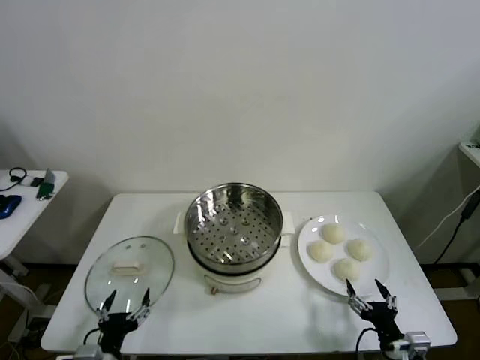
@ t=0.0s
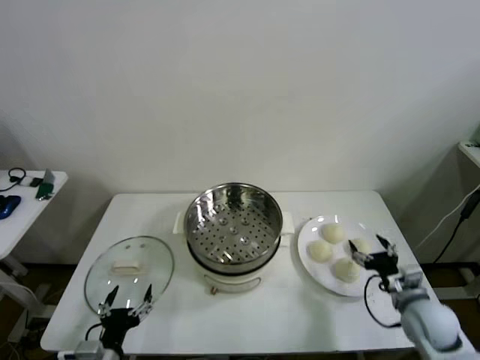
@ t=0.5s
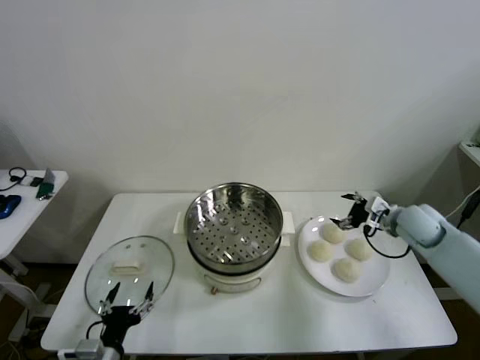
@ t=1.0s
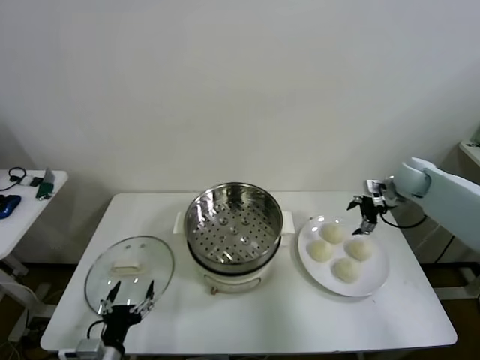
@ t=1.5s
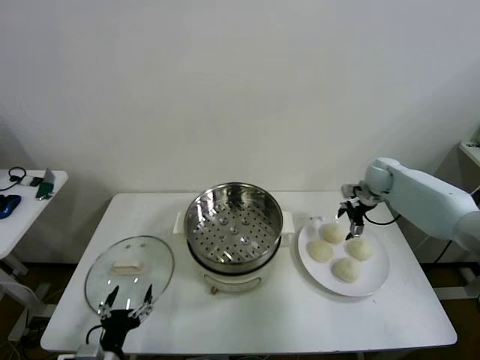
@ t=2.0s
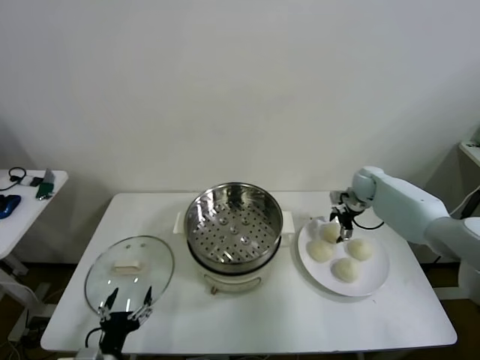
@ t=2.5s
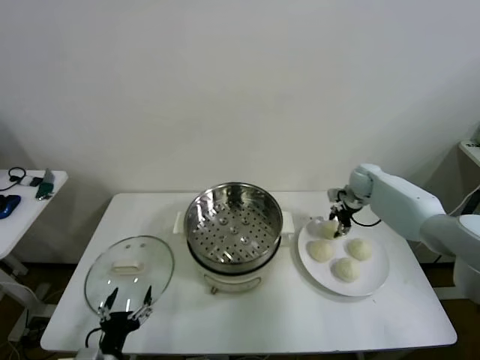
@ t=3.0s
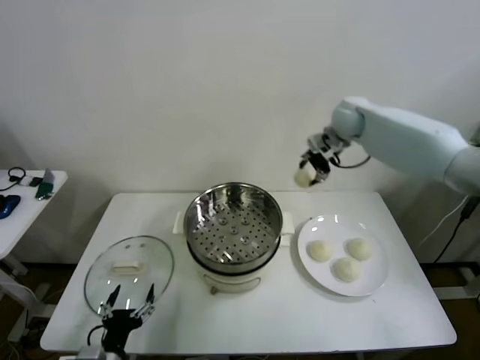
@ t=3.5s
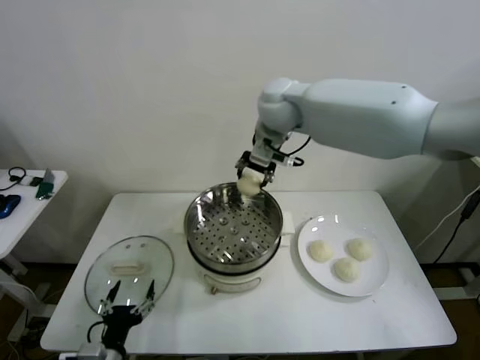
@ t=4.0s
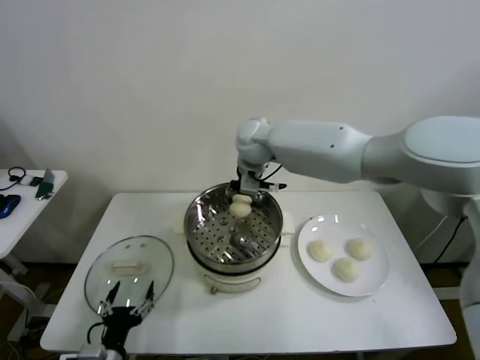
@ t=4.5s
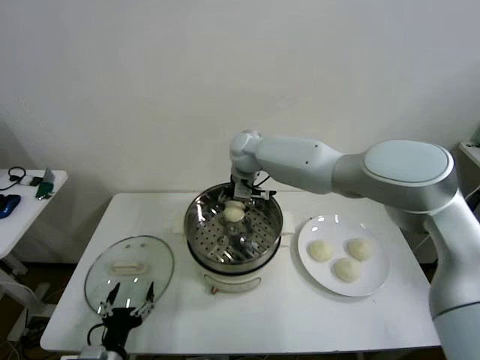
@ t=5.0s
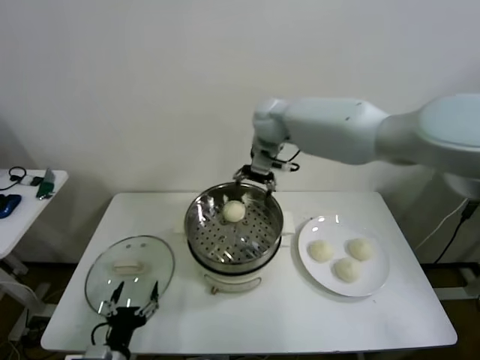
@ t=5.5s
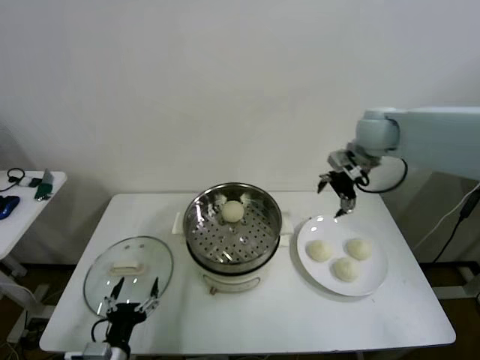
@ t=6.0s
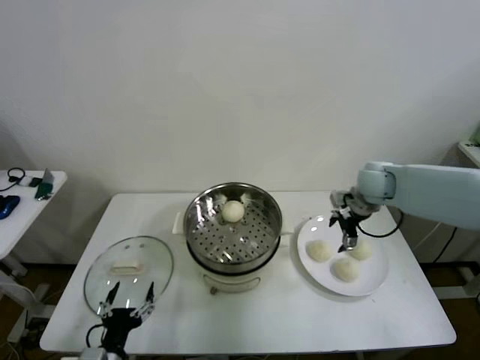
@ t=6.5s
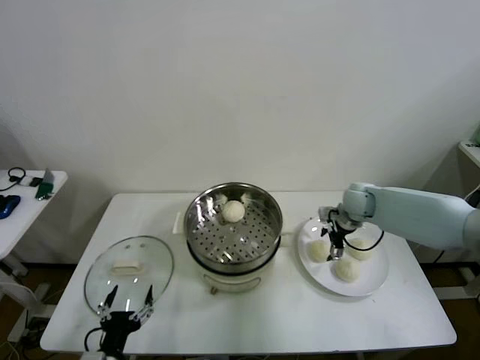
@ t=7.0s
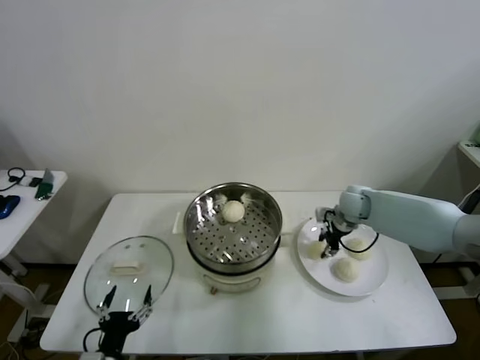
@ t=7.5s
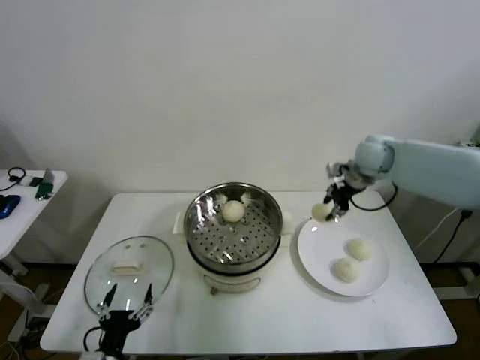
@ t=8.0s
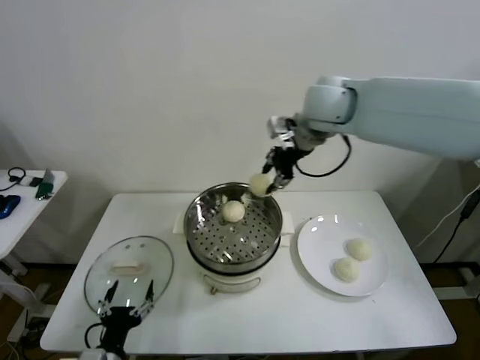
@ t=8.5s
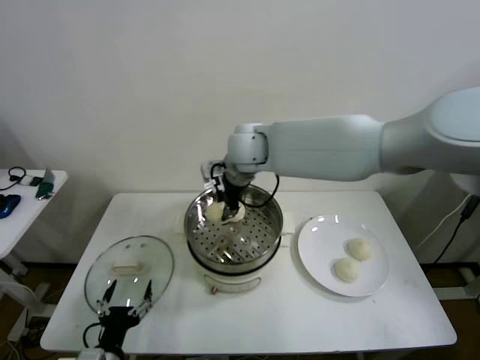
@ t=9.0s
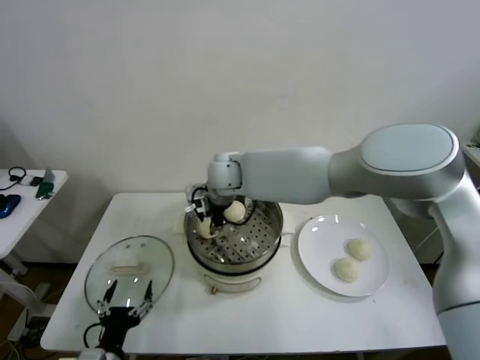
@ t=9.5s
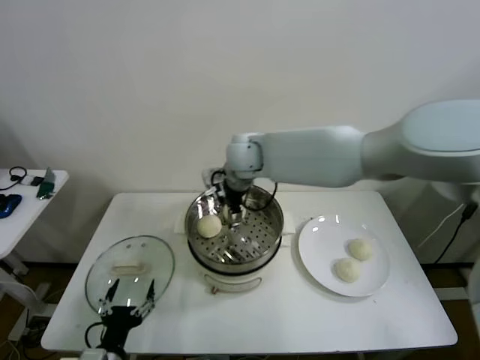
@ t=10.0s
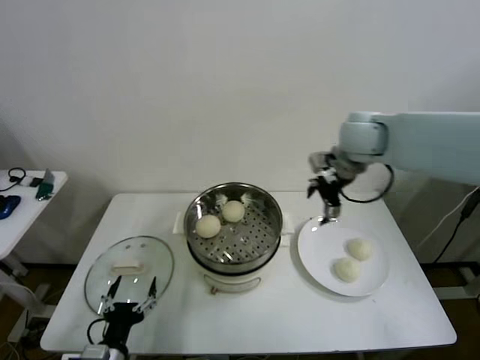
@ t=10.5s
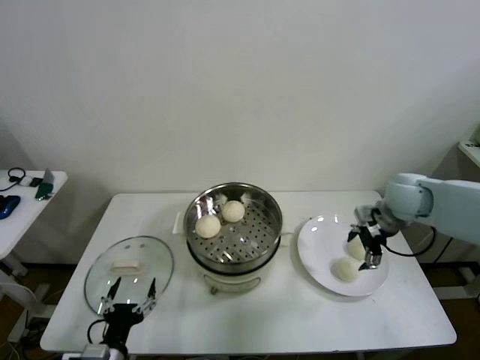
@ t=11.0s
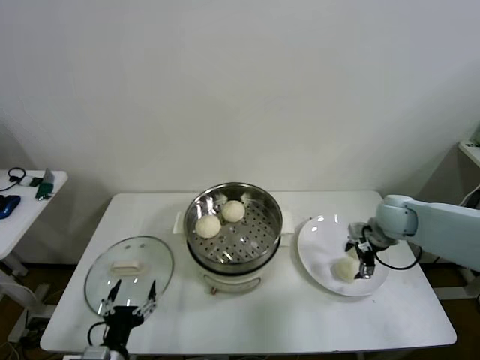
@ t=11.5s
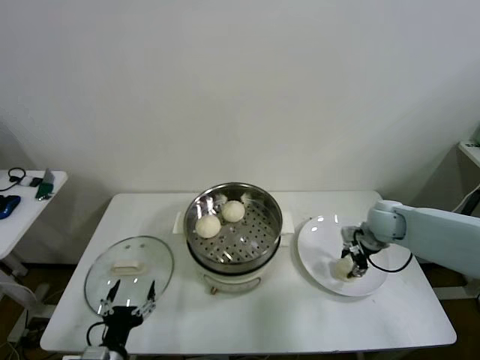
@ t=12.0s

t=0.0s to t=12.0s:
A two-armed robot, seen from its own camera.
Step, t=0.0s to t=2.5s: Grasp the baozi in the plate with right gripper.
Step, t=3.0s to t=5.0s: Place the baozi on the steamer with right gripper.
Step, t=5.5s to t=7.0s: Grasp the baozi in the plate with right gripper.
Step, t=7.5s to t=9.5s: Place the baozi on the steamer with right gripper.
Step, t=10.0s to t=12.0s: Grasp the baozi in the plate with right gripper.
t=2.0s to t=4.0s: The right gripper travels to the left and upward by some 40 cm, and closes its fingers.
t=4.0s to t=6.0s: The right gripper travels to the right by some 25 cm, and opens up.
t=6.0s to t=8.0s: The right gripper moves about 20 cm downward and comes back, and closes its fingers.
t=8.0s to t=10.0s: The right gripper travels to the left by roughly 25 cm, and opens its fingers.
t=10.0s to t=12.0s: The right gripper is displaced to the right and downward by about 35 cm, and closes up.

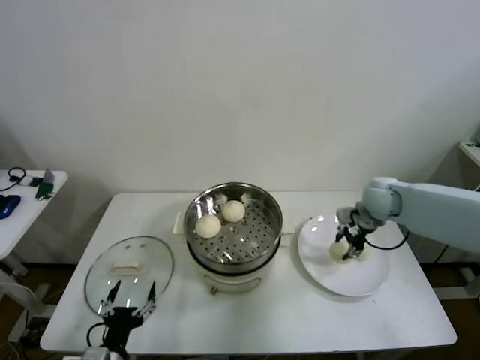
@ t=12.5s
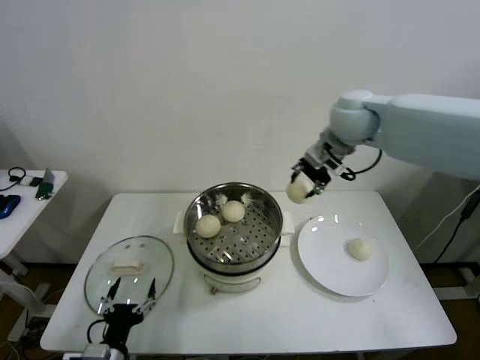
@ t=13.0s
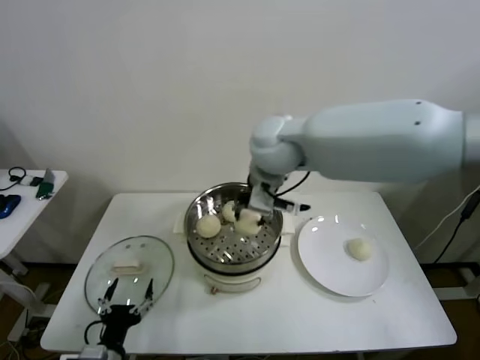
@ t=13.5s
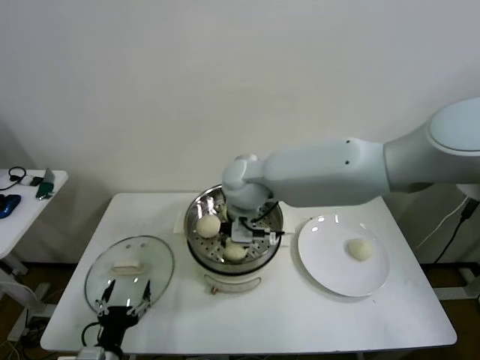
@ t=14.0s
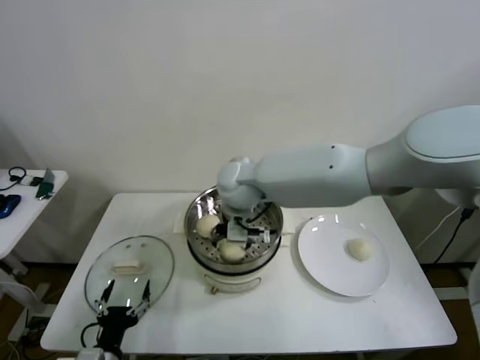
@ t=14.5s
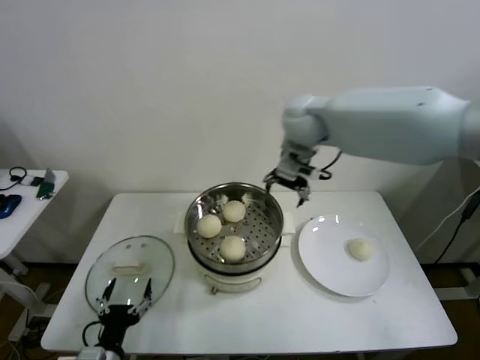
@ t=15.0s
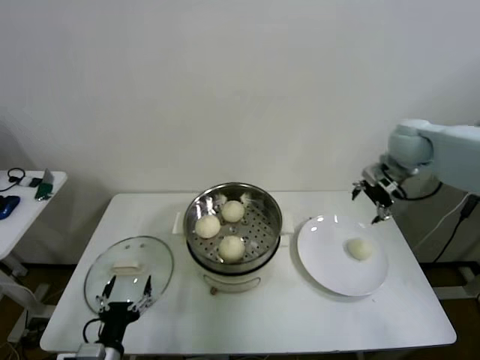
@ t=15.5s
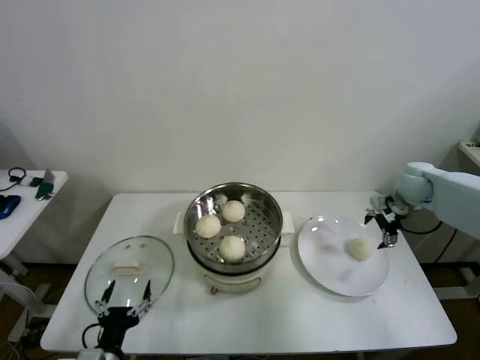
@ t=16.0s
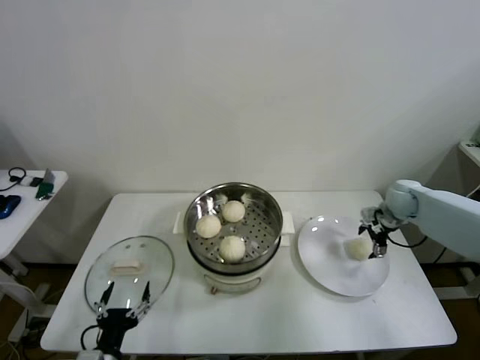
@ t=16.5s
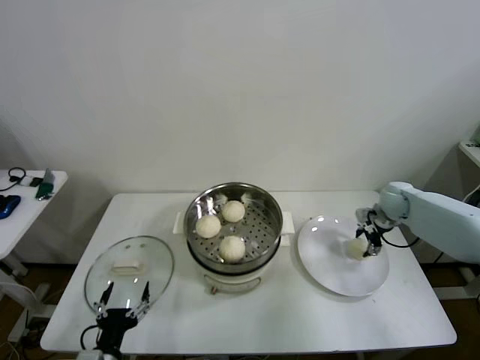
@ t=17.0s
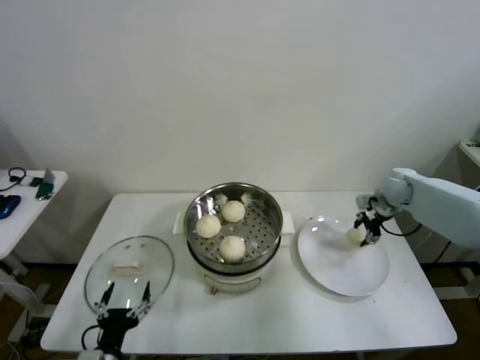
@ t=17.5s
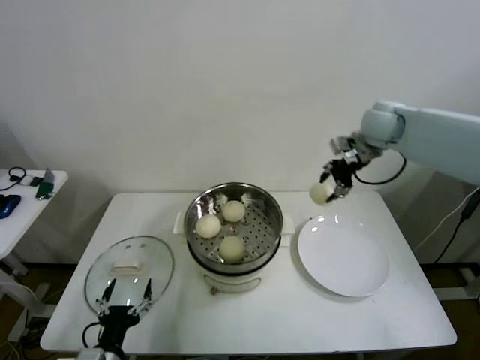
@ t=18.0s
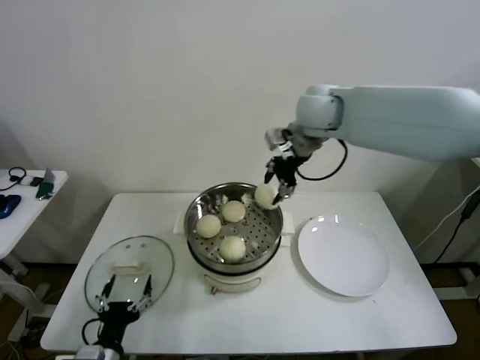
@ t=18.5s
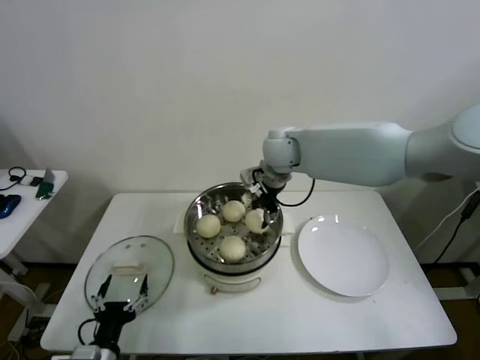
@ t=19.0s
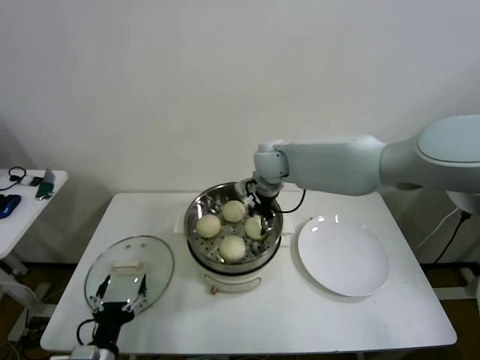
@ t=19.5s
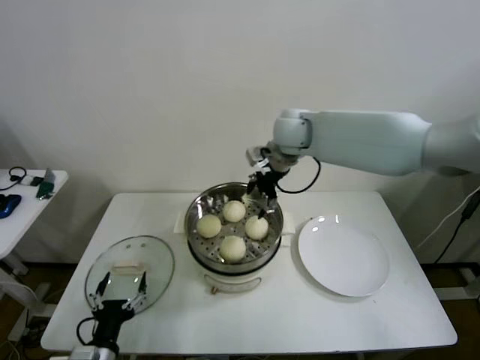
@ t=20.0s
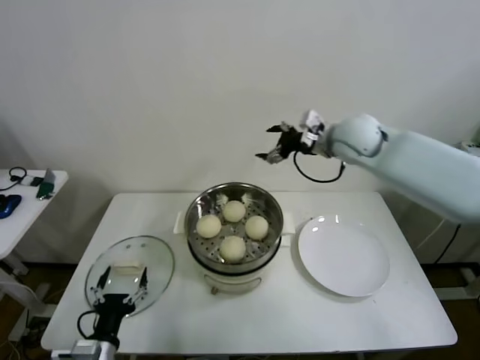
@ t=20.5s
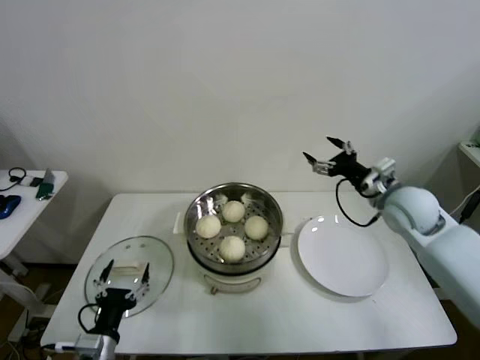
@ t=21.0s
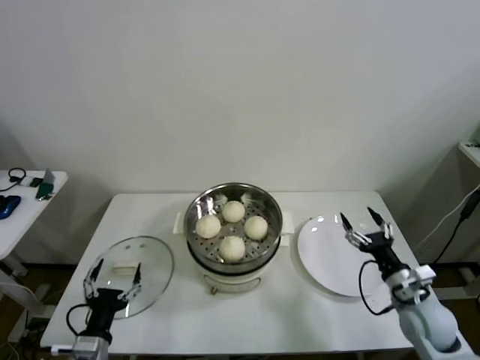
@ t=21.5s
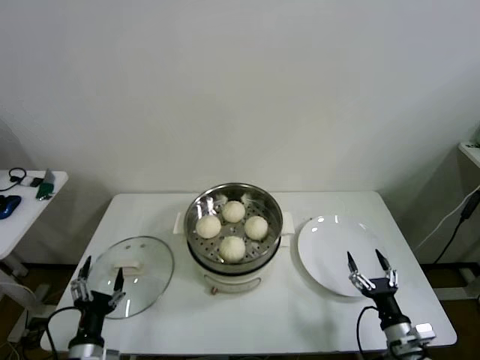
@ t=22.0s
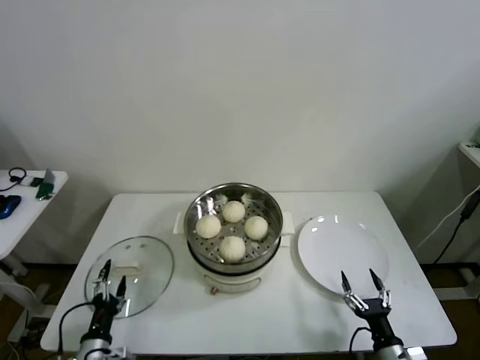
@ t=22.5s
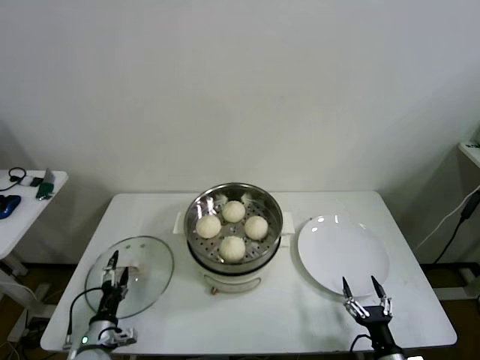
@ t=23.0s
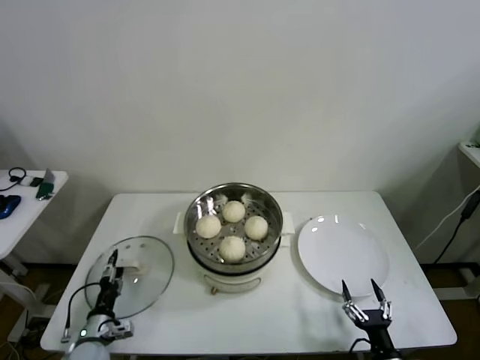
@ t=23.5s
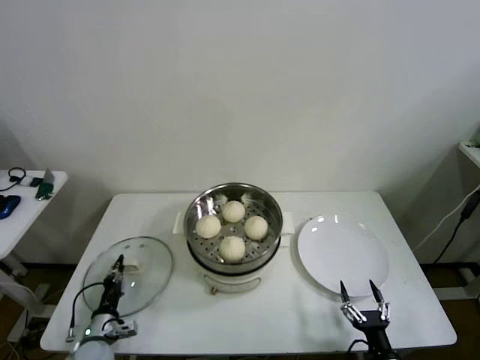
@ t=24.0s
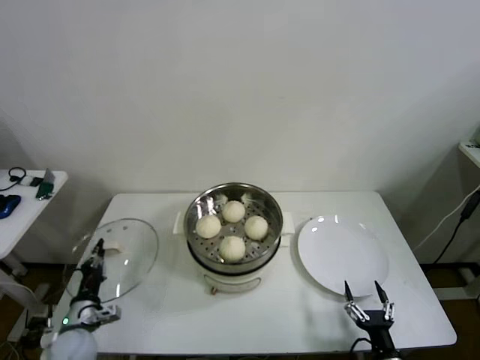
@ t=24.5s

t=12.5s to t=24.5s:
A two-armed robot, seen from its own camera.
Step, t=12.5s to t=14.0s: Place the baozi on the steamer with right gripper.
Step, t=14.5s to t=17.0s: Grasp the baozi in the plate with right gripper.
Step, t=17.5s to t=19.5s: Place the baozi on the steamer with right gripper.
Step, t=20.0s to t=23.5s: Grasp the pot lid with left gripper.
t=12.5s to t=14.5s: The right gripper heads to the left, covering about 35 cm, and opens.
t=14.5s to t=16.5s: The right gripper heads to the right, covering about 40 cm.
t=16.5s to t=18.5s: The right gripper is displaced to the left and upward by about 35 cm, and closes.
t=18.5s to t=20.5s: The right gripper moves to the right and downward, approximately 10 cm, and opens.
t=20.5s to t=22.5s: The left gripper travels downward by approximately 10 cm. Meanwhile the right gripper travels downward and backward by some 50 cm.
t=22.5s to t=24.5s: The left gripper travels forward by approximately 10 cm, and closes its fingers.

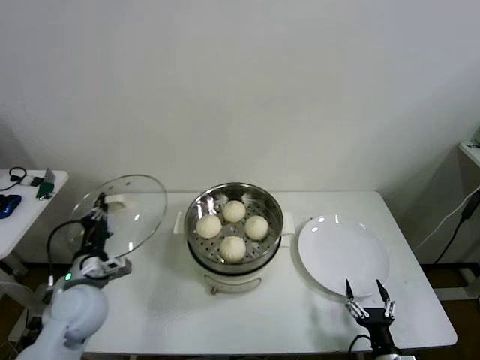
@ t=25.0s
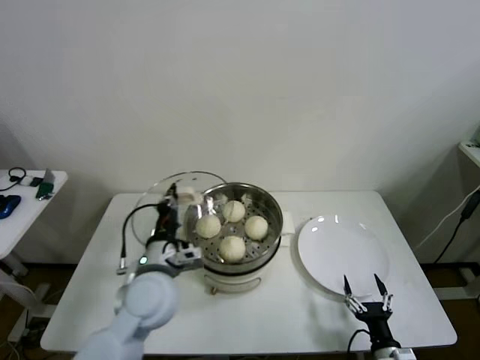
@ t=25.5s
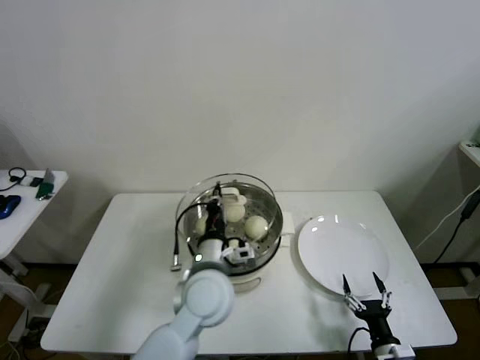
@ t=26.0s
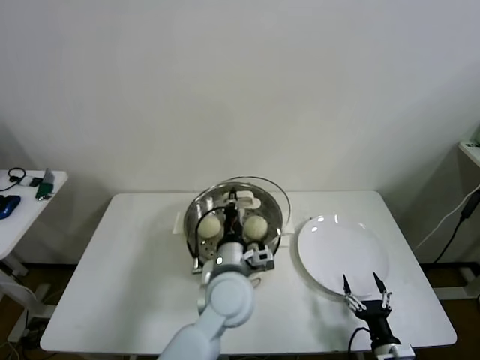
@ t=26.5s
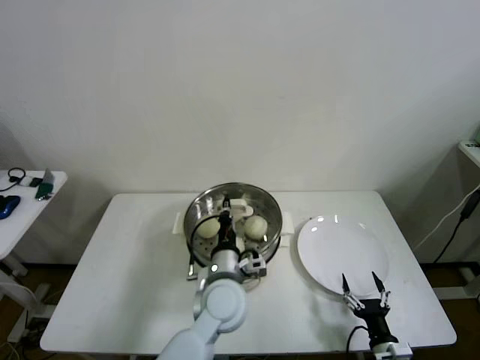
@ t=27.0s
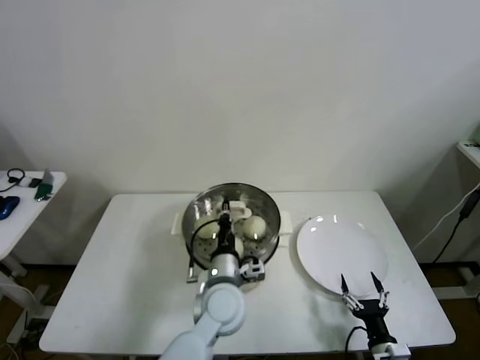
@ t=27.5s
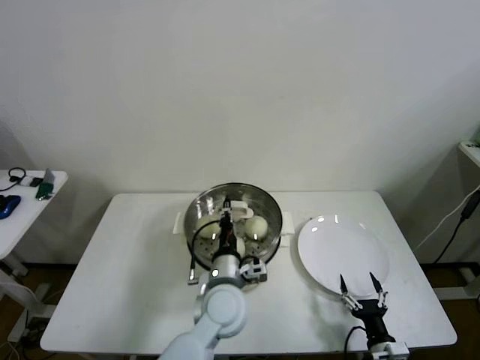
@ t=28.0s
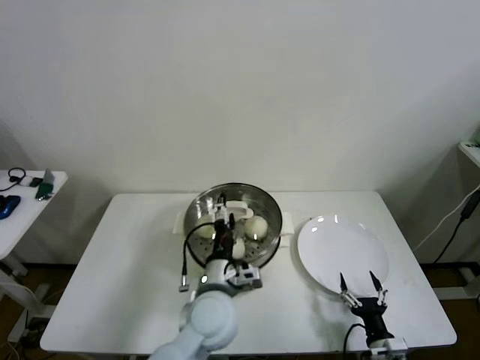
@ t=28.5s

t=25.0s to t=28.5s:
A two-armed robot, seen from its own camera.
Step, t=25.0s to t=28.0s: Place the pot lid on the steamer with left gripper.
t=25.0s to t=27.0s: The left gripper goes roughly 30 cm to the right.
t=27.0s to t=28.5s: The left gripper opens.
